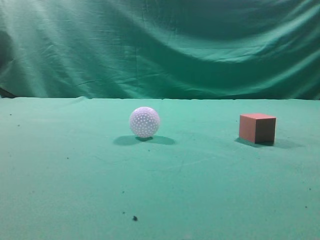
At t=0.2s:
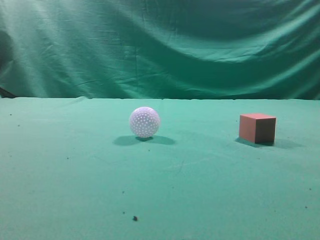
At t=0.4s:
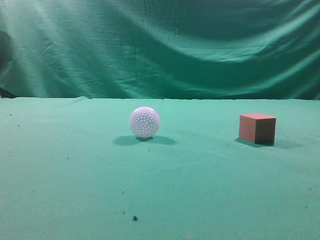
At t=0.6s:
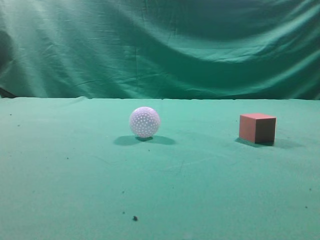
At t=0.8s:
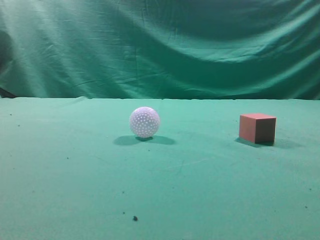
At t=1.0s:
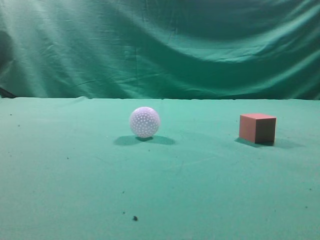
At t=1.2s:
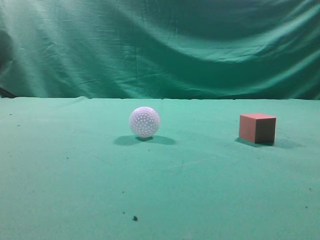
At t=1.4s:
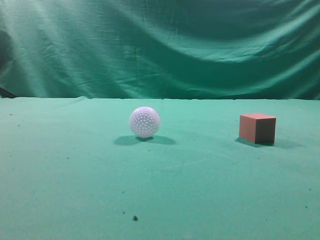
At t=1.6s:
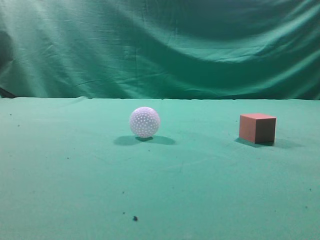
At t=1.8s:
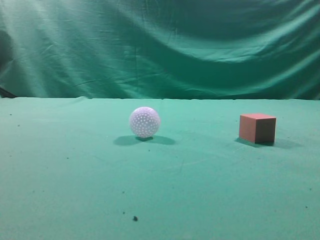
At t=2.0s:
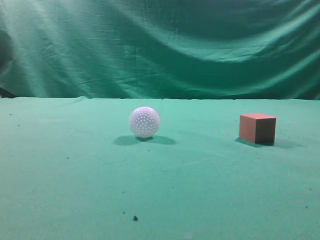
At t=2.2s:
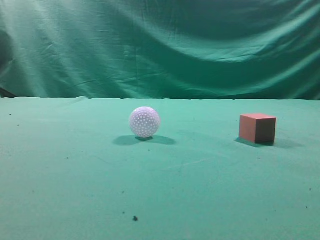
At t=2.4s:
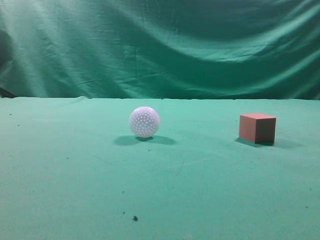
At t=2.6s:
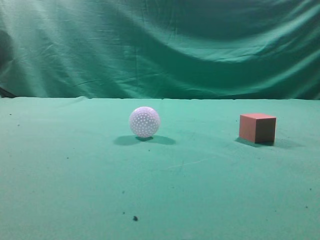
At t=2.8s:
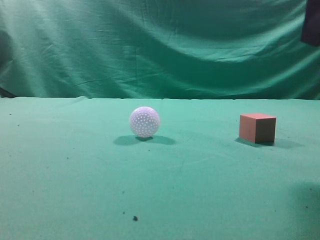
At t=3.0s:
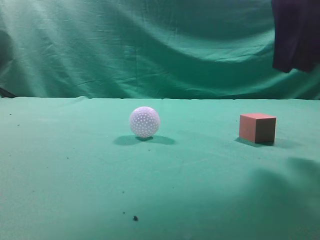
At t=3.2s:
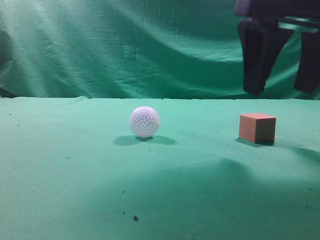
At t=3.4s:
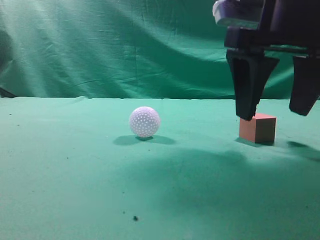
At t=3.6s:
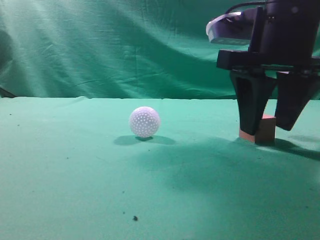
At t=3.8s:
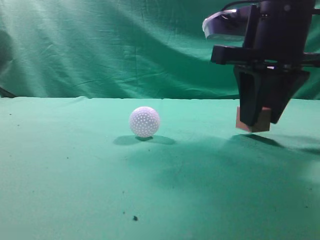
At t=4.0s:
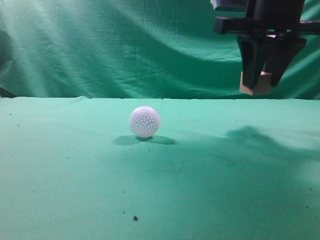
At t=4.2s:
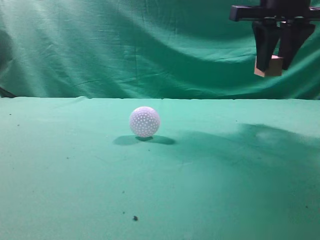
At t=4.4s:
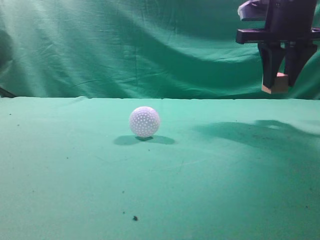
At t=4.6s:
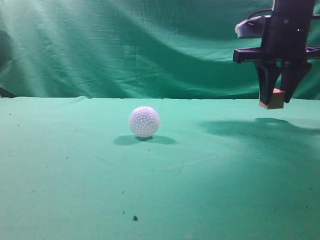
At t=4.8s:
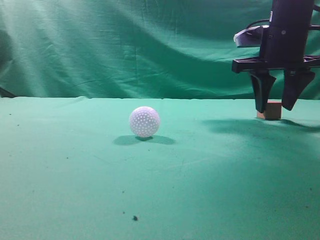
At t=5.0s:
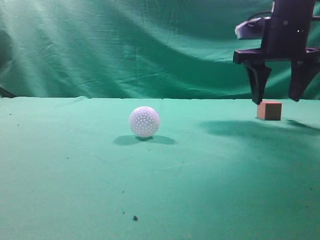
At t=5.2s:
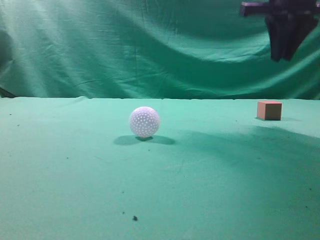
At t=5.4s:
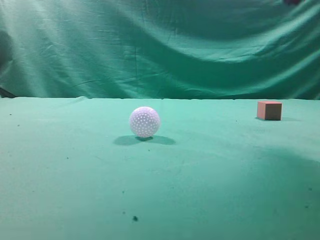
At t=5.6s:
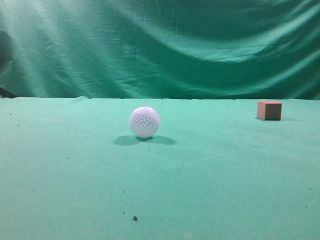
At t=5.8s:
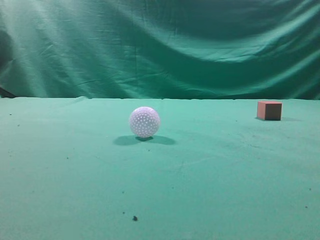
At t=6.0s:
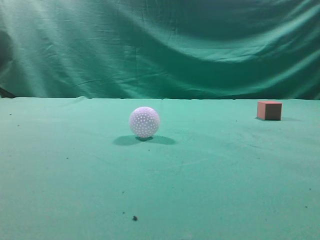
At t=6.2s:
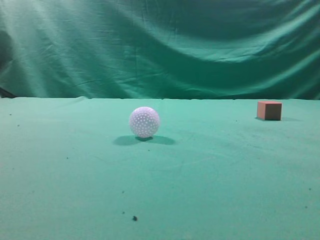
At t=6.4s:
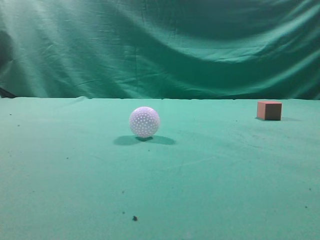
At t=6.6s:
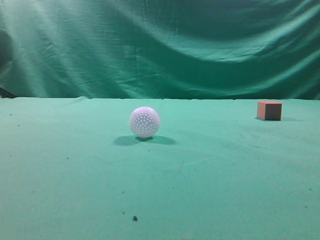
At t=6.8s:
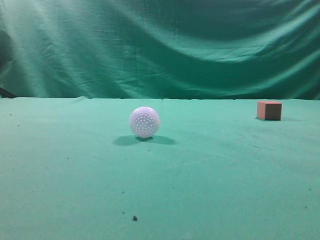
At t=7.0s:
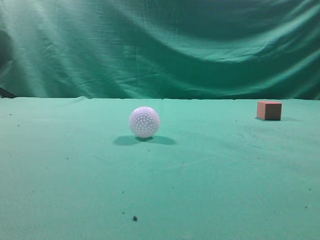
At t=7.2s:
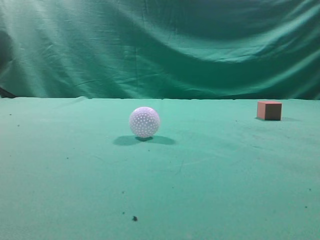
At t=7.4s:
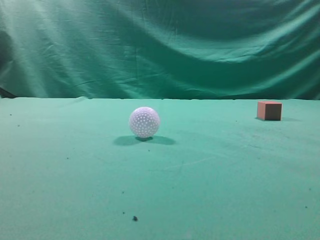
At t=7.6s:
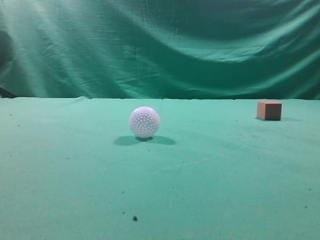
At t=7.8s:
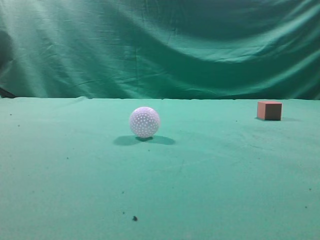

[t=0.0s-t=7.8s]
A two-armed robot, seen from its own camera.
Task of the whole recording: pick up the cube block and place it in another position on the table.
Step, t=0.0s to t=3.8s: Pick up the small cube.
Step, t=4.0s to t=4.8s: Place the small cube on the ahead of the table.
t=1.6s to t=3.2s: The right gripper travels forward and to the left by roughly 25 cm, and opens its fingers.
t=3.2s to t=4.6s: The right gripper moves forward, about 15 cm, and closes its fingers.
t=4.6s to t=6.2s: The right gripper moves backward and upward, about 35 cm, and closes up.
